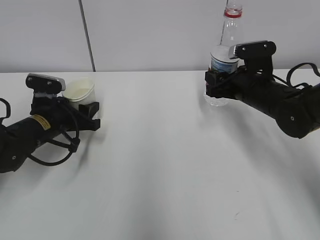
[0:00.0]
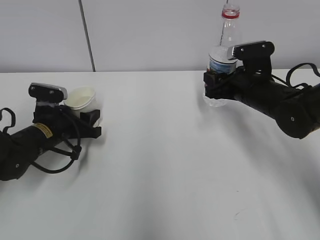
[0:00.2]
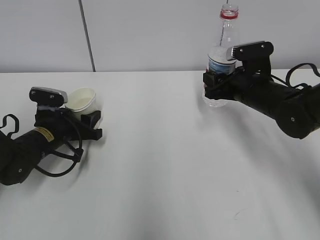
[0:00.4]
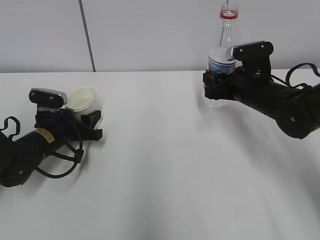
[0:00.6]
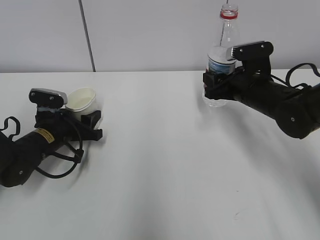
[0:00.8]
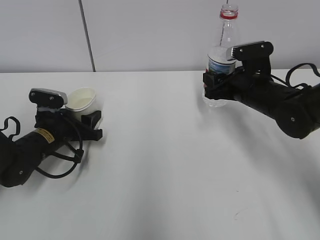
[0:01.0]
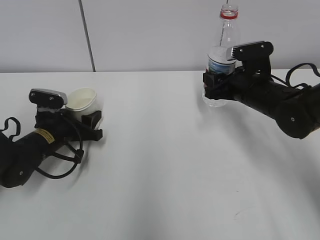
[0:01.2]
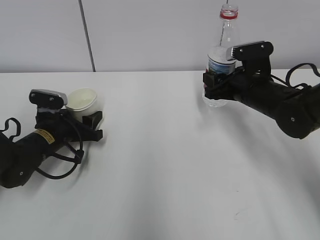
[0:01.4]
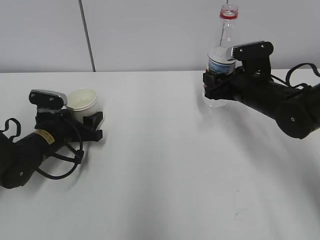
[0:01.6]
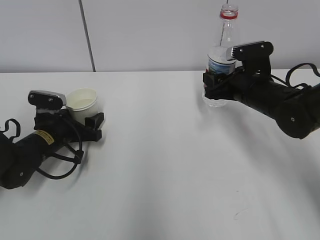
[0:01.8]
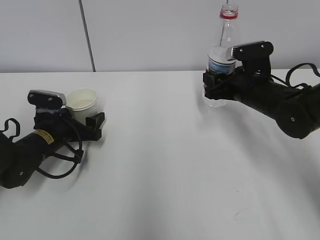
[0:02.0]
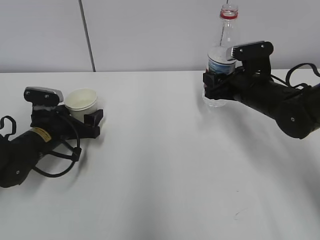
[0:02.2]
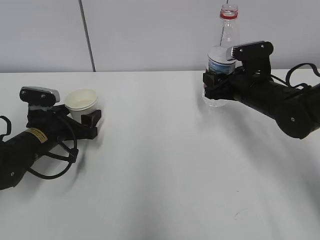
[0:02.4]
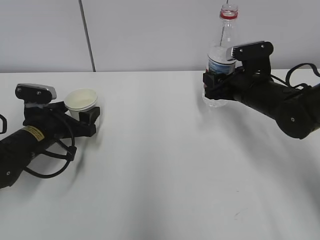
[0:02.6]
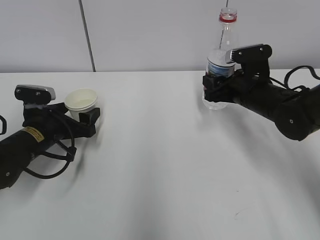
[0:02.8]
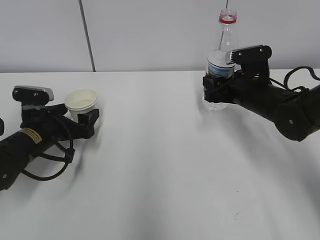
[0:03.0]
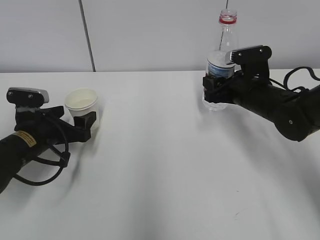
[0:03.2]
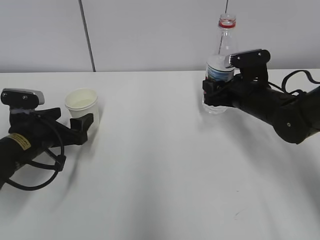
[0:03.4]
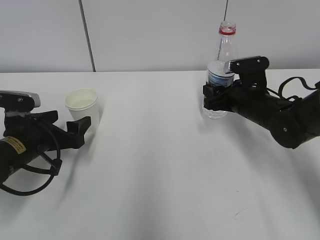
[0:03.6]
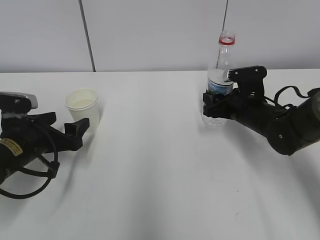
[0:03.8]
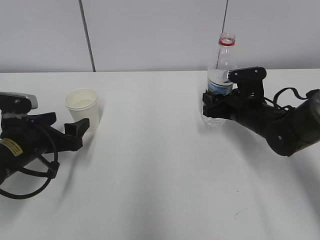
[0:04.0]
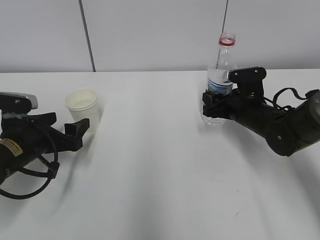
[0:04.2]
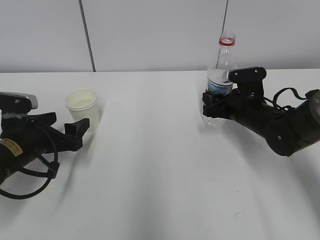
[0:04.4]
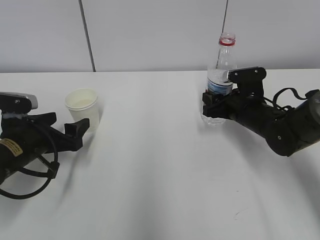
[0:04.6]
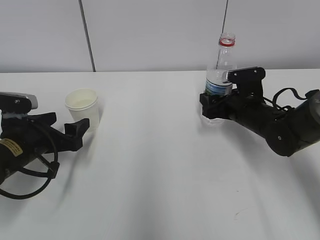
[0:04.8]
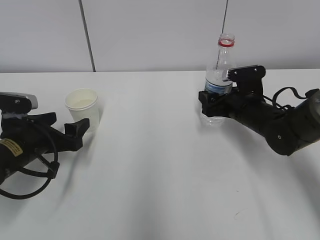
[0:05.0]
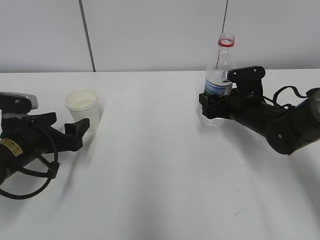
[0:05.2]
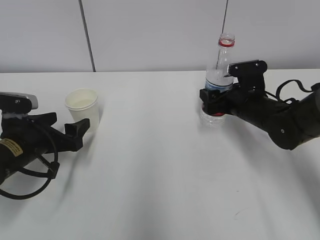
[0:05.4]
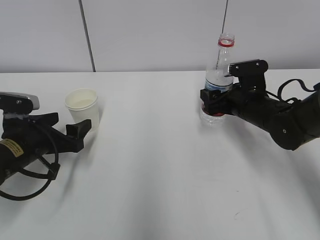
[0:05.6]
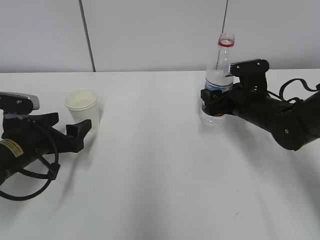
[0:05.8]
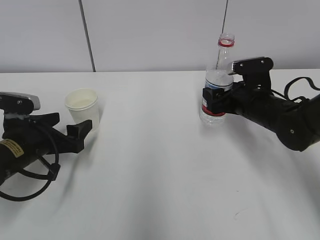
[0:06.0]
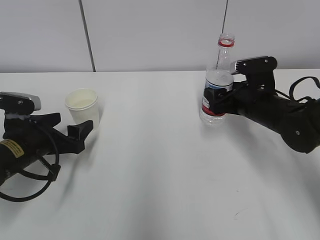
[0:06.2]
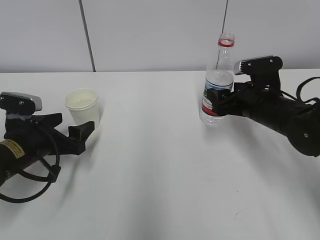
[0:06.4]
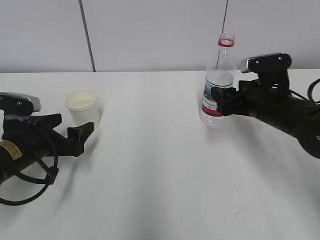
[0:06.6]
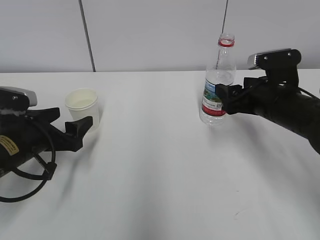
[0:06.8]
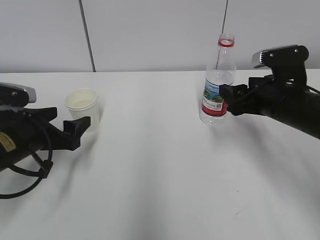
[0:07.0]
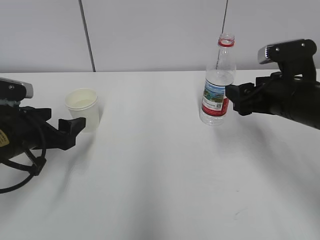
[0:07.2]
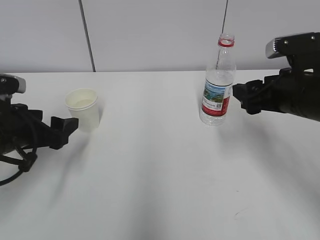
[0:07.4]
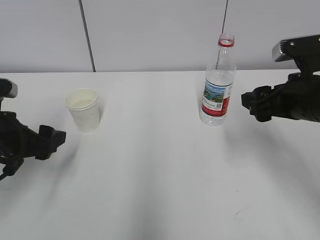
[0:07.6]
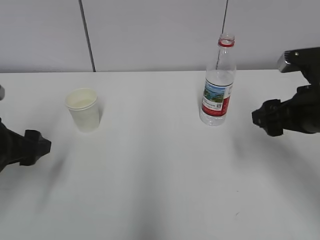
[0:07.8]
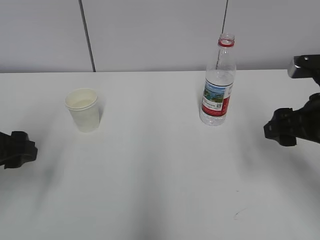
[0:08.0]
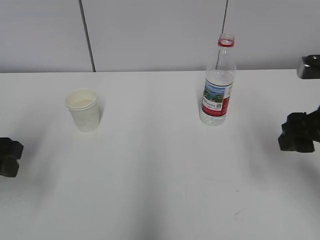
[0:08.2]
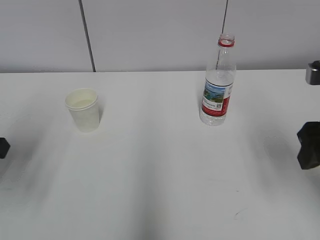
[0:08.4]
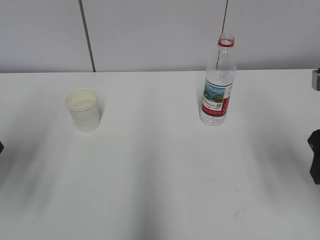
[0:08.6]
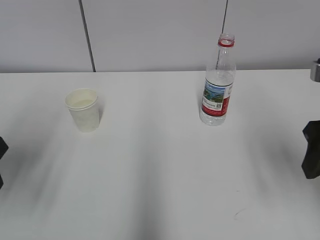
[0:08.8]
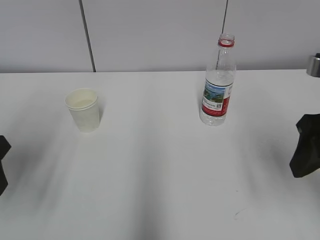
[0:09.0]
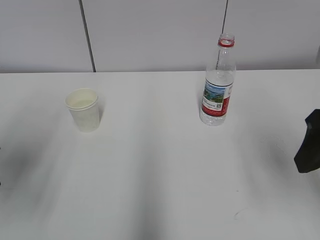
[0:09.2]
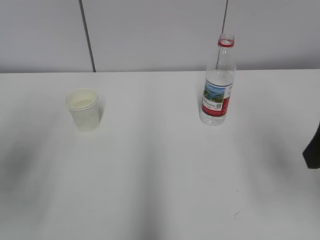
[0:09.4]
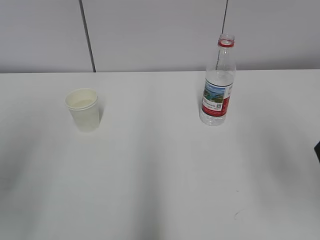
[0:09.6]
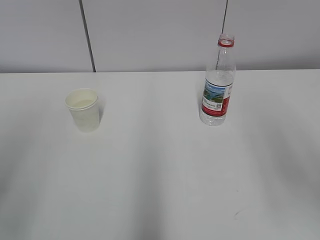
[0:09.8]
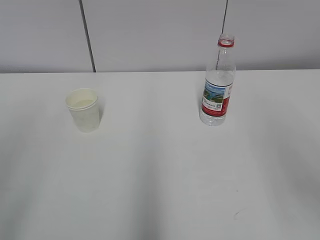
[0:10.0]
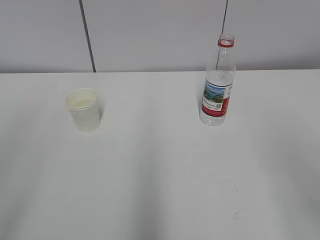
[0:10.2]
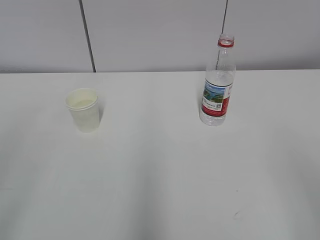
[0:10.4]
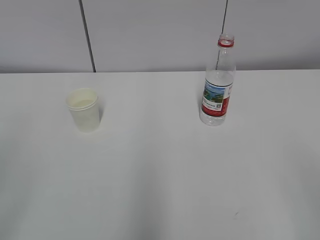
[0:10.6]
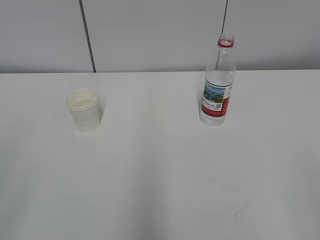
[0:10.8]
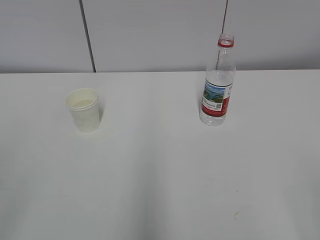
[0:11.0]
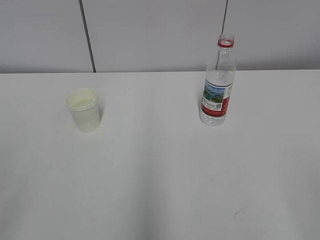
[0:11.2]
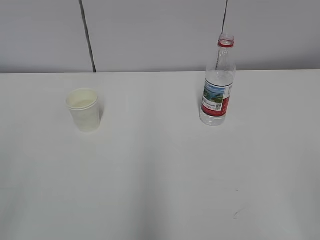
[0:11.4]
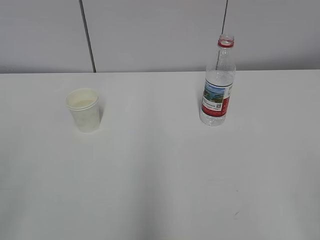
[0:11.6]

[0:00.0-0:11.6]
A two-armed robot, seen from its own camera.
0:00.0 to 0:01.4: The grippers stay close to where they were, moving slightly.
0:01.4 to 0:02.8: The left gripper opens up.
0:02.8 to 0:04.4: The left gripper ends up roughly 5 cm from where it was.
0:04.4 to 0:05.8: The right gripper opens.
0:05.8 to 0:07.2: The right gripper travels backward and upward by approximately 10 cm.
0:07.2 to 0:08.8: The left gripper is displaced upward and backward by roughly 15 cm, and closes; the right gripper shifts approximately 15 cm backward and upward.
0:08.8 to 0:10.2: The two grippers go about 15 cm backward and upward.
